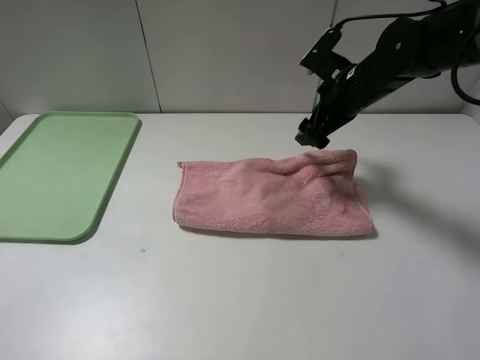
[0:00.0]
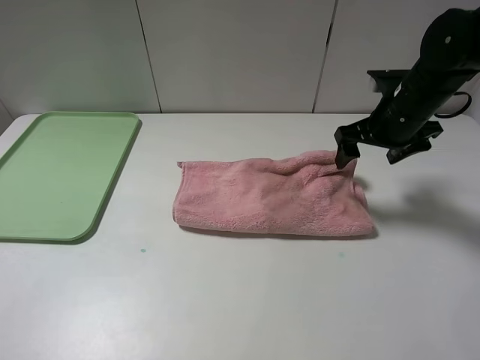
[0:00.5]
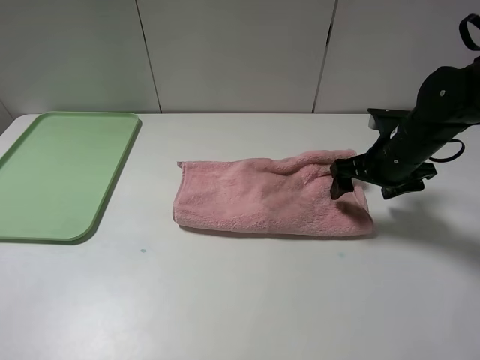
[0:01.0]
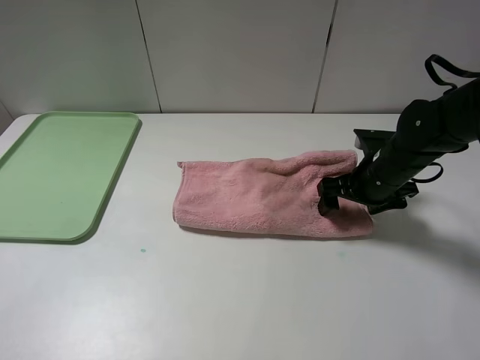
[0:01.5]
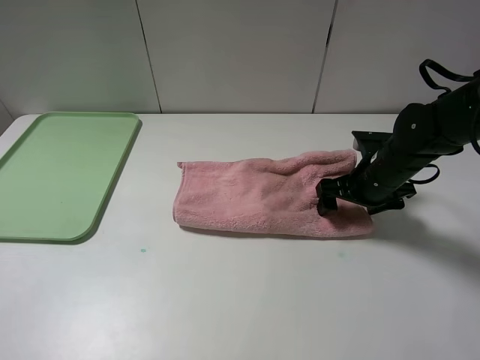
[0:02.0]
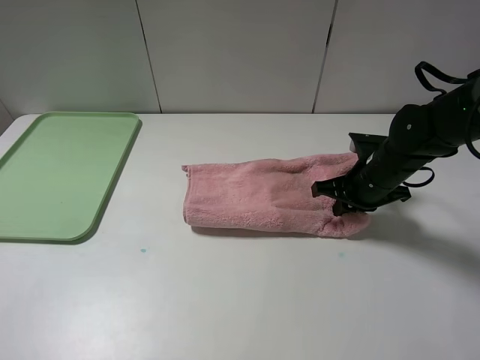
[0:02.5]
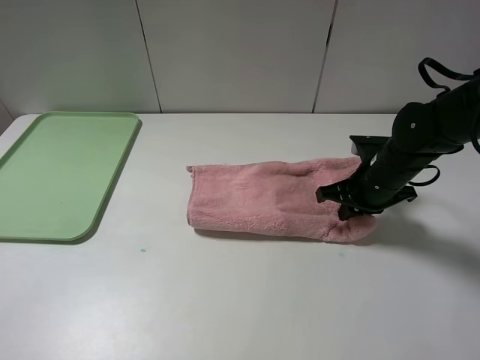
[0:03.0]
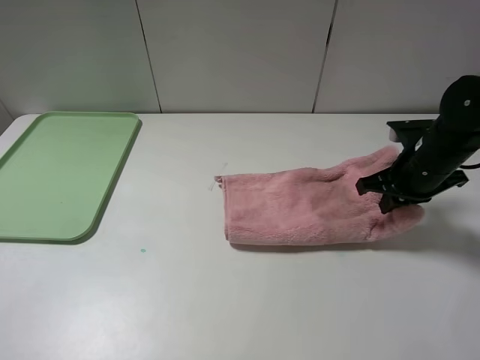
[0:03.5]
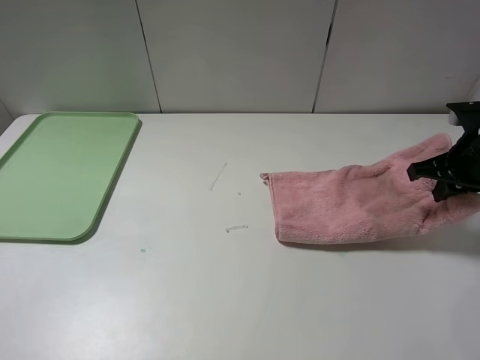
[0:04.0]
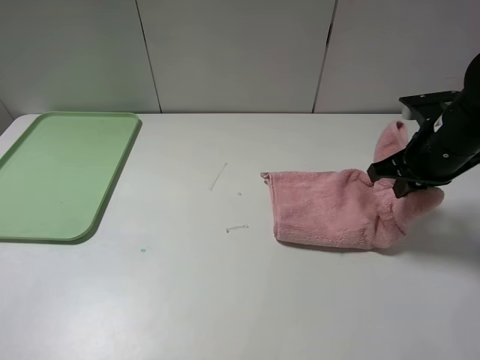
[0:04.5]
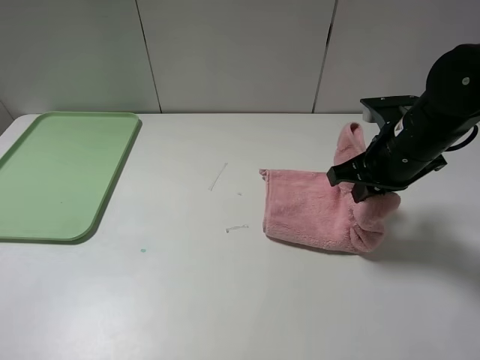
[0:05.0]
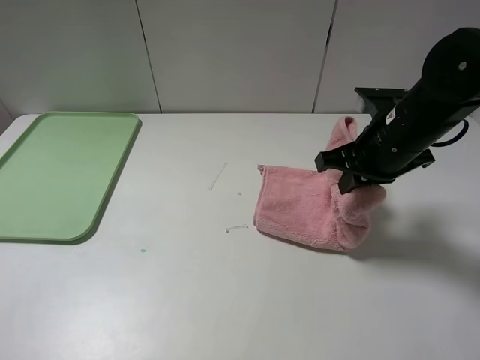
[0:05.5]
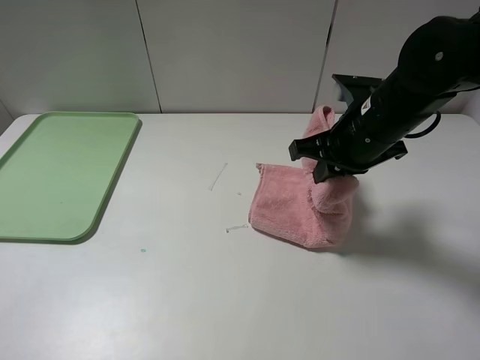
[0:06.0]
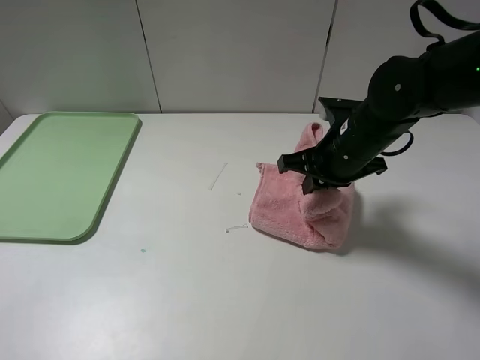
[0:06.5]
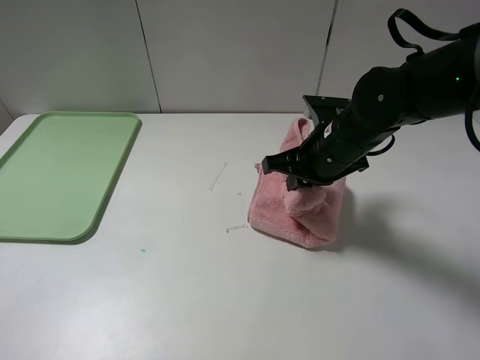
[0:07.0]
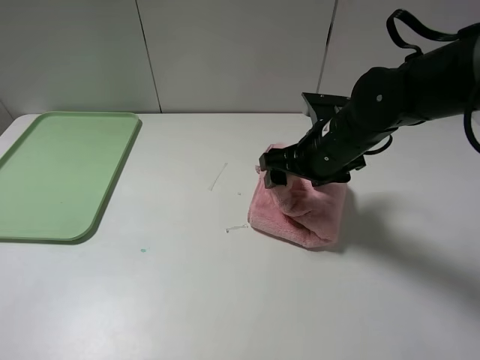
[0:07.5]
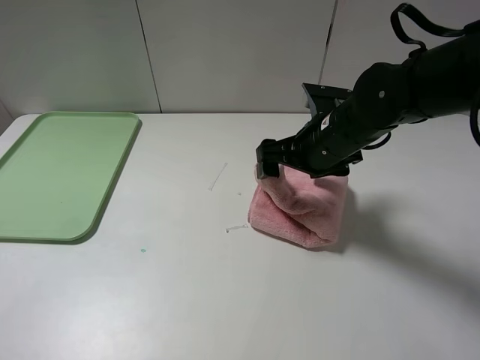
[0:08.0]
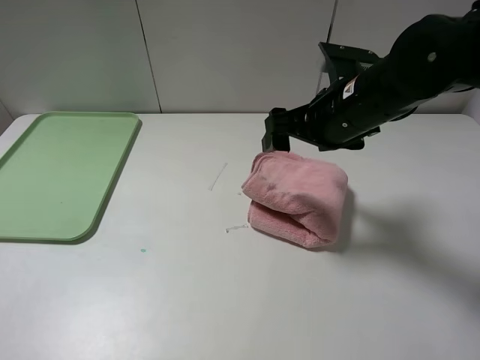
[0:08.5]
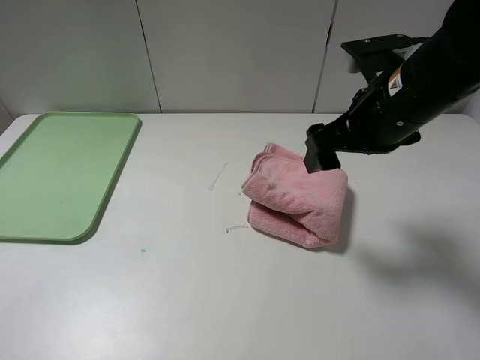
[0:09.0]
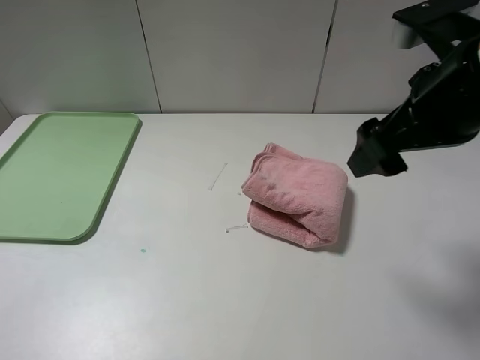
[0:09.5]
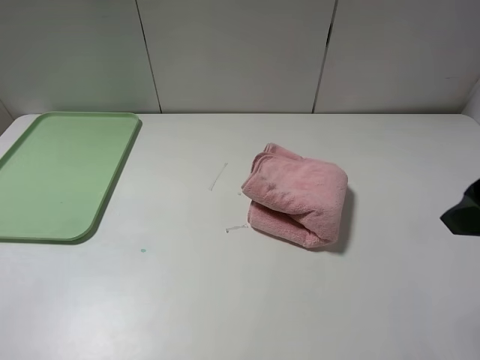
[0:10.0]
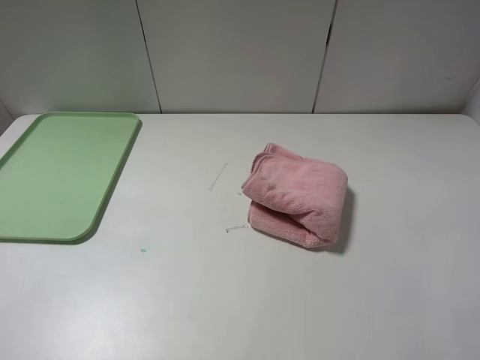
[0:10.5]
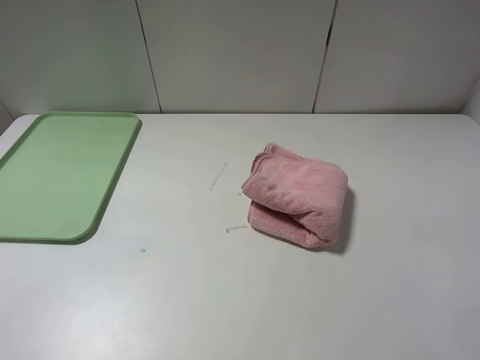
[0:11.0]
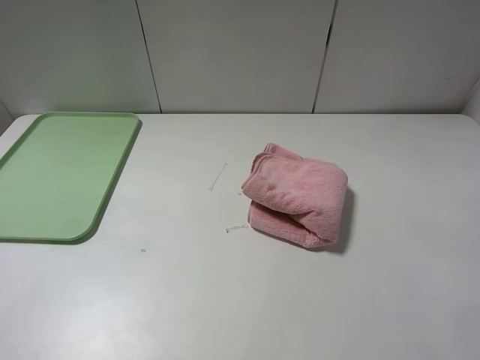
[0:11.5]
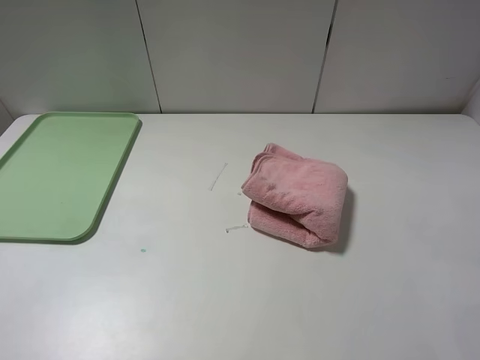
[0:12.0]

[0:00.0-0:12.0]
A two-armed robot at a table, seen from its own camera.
Step, 0:00.0 to 0:08.5: Fold the pink towel from right to left with right gripper.
0:00.0 to 0:02.0: The right gripper moves downward and backward, some 10 cm.
0:02.0 to 0:04.0: The right gripper is displaced to the right and upward by about 15 cm, and closes up.
0:04.0 to 0:06.0: The right gripper moves to the left, approximately 15 cm.
0:06.0 to 0:08.0: The right gripper opens up.
0:08.0 to 0:10.0: The right gripper travels backward, upward and to the right by roughly 25 cm.
0:10.0 to 0:12.0: The right gripper travels backward by roughly 15 cm.

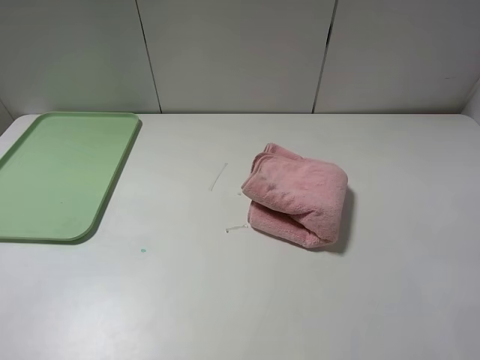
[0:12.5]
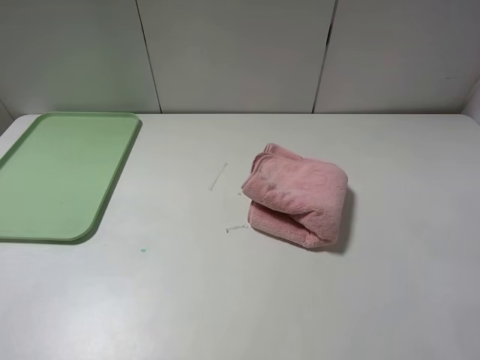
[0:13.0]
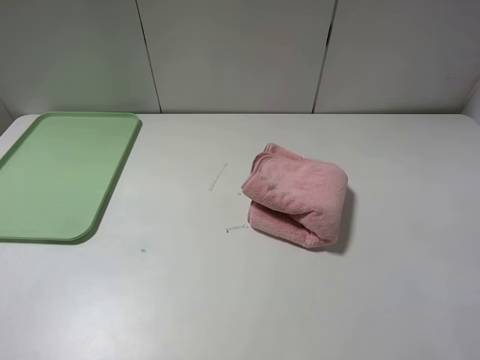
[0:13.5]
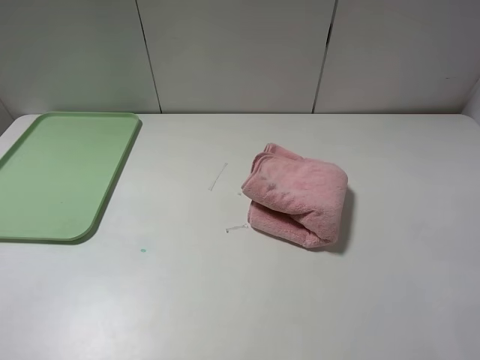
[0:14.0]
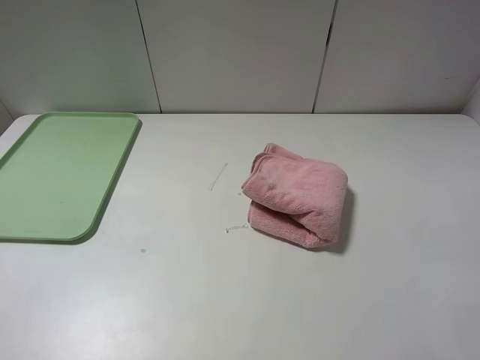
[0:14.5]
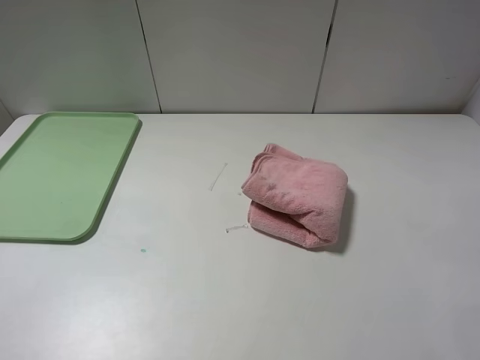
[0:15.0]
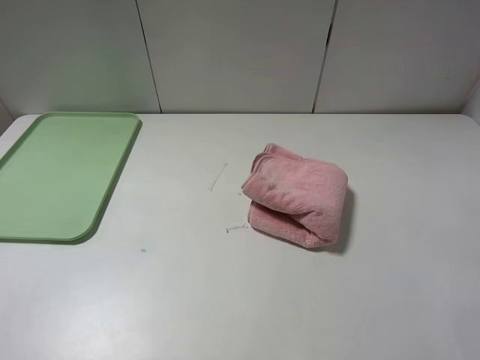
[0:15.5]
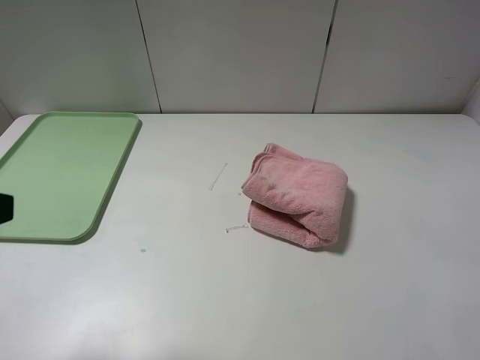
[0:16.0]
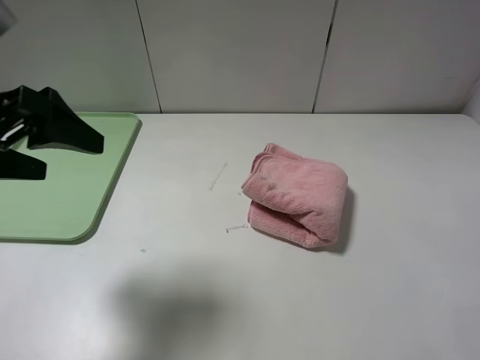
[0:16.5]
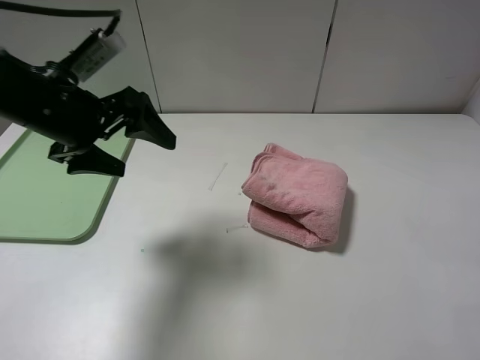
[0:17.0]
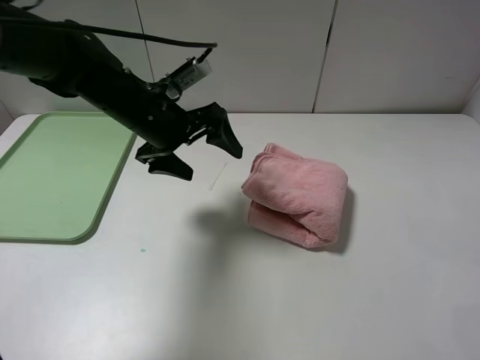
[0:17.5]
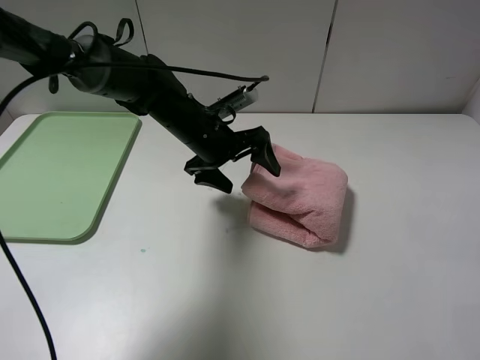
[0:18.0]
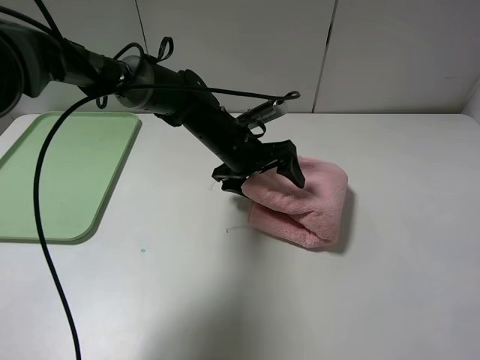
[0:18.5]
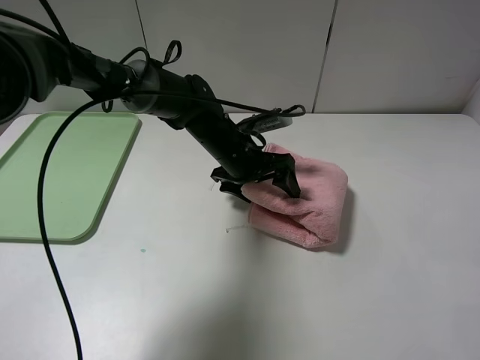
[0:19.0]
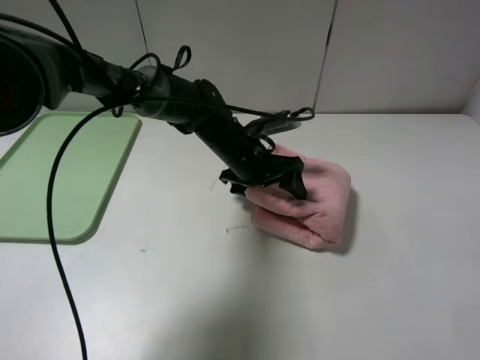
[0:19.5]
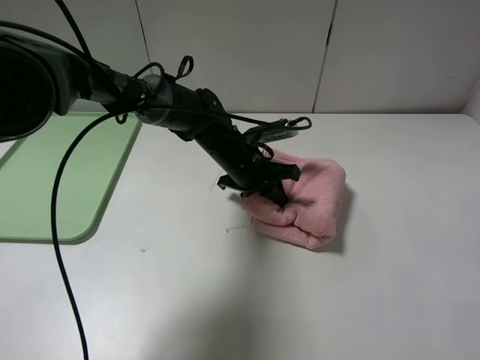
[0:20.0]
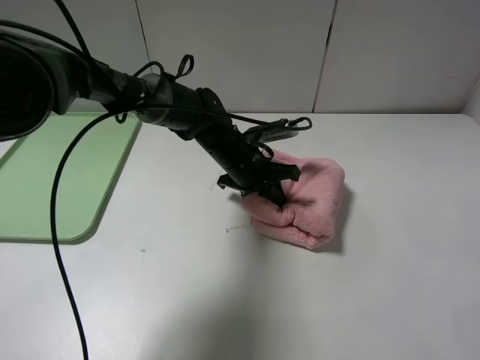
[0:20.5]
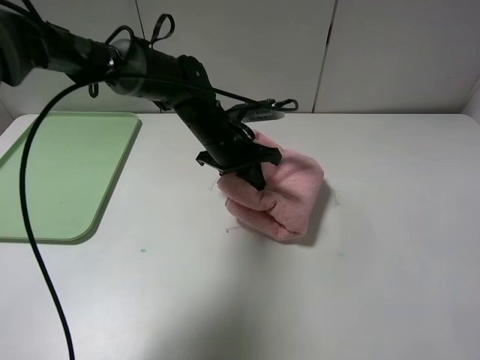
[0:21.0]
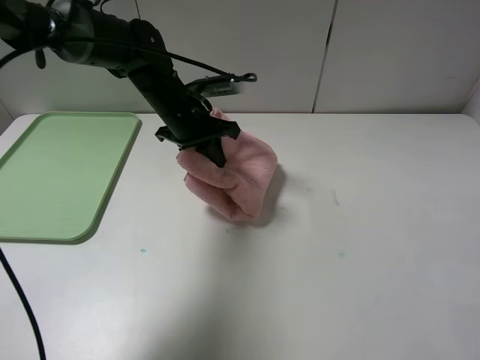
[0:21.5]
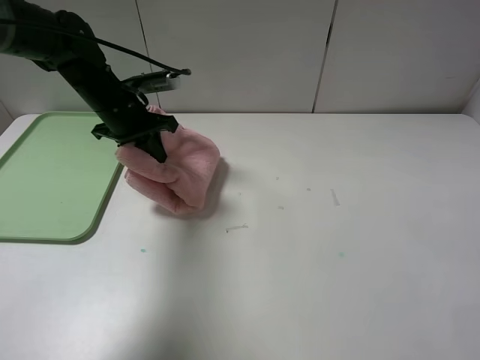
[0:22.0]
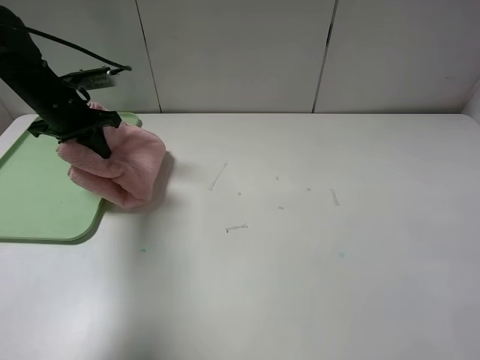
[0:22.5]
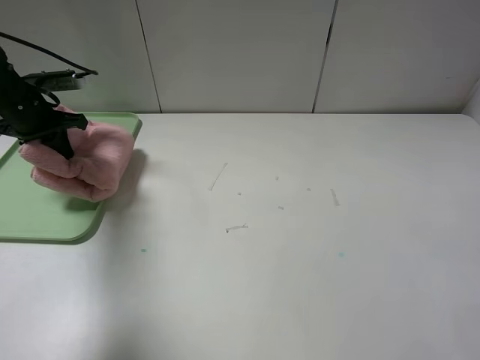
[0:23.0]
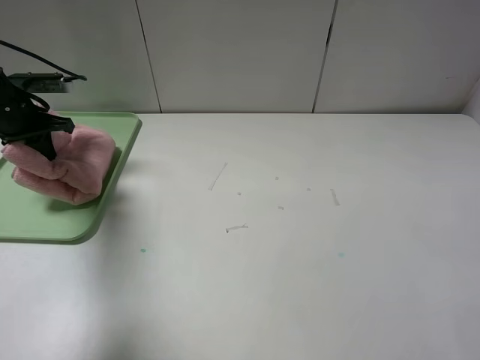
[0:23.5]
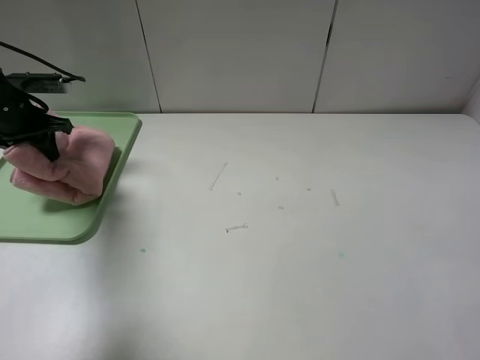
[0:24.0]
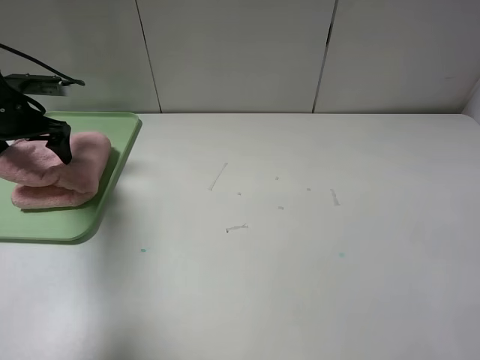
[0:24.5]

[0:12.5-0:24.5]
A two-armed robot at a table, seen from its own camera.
0:12.5 to 0:14.5: The two grippers keep their place.
0:14.5 to 0:16.5: The left gripper travels forward by some 20 cm.
0:16.5 to 0:18.5: The left gripper heads to the right, forward and downward, covering approximately 35 cm.
0:18.5 to 0:20.5: The left gripper closes its fingers.
0:20.5 to 0:22.5: The left gripper heads to the left, covering approximately 30 cm.
0:22.5 to 0:24.5: The left gripper moves to the left, roughly 5 cm, and opens up.

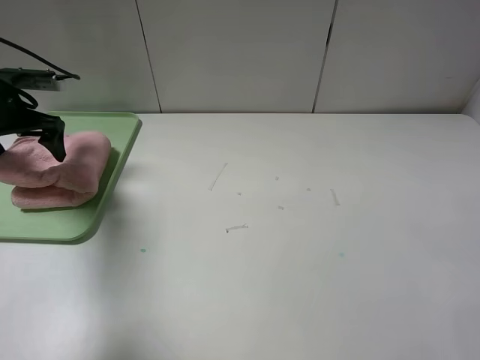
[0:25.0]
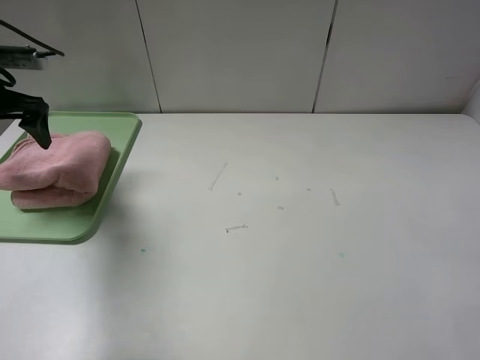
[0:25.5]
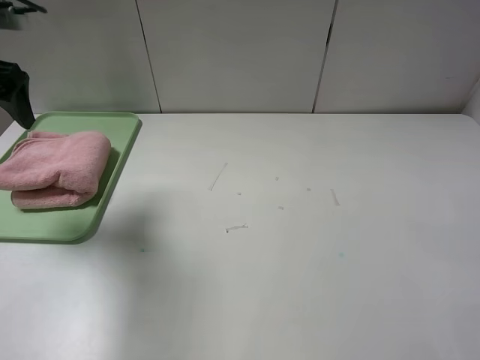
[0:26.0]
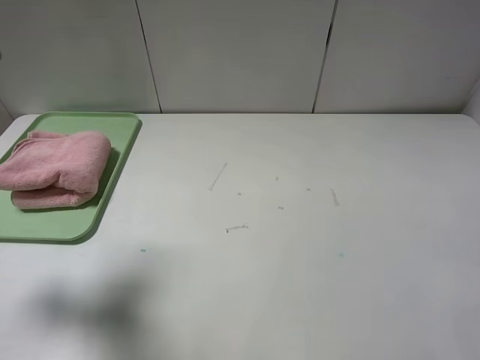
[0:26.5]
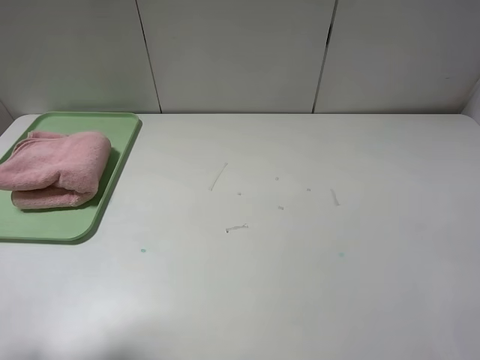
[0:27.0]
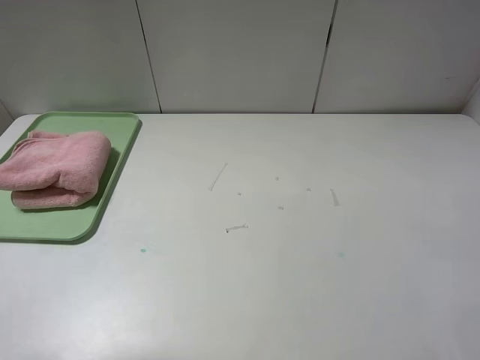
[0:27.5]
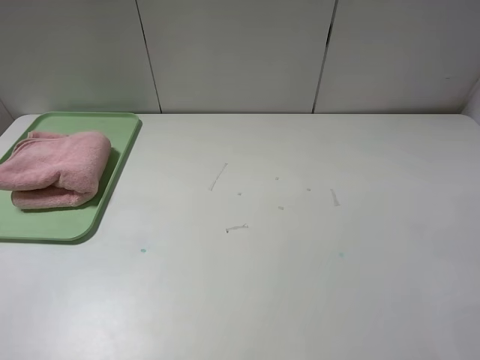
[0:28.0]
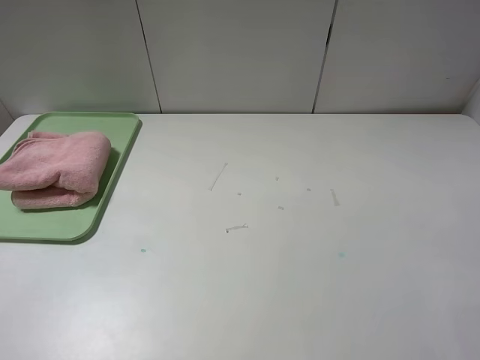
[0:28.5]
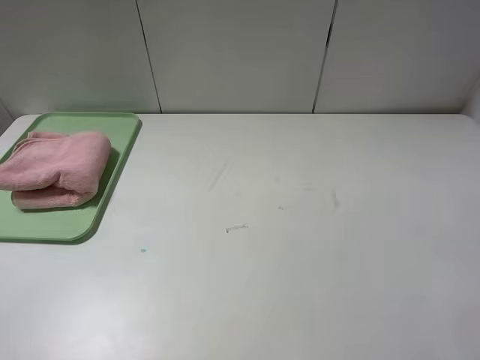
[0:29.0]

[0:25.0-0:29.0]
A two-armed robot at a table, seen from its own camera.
0:25.0 to 0:27.0: The left gripper shifts some 30 cm backward.
0:27.0 to 0:29.0: The left gripper is displaced backward by some 10 cm.
